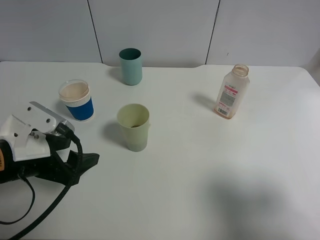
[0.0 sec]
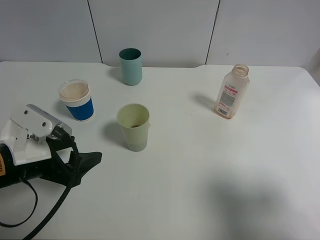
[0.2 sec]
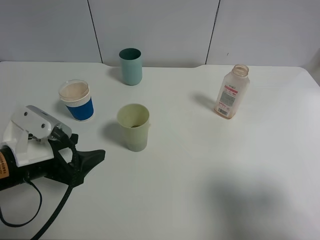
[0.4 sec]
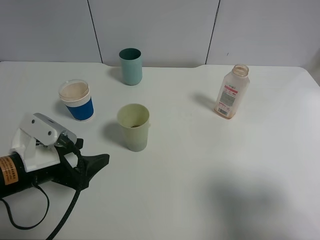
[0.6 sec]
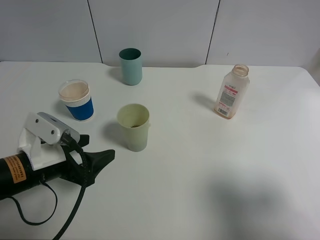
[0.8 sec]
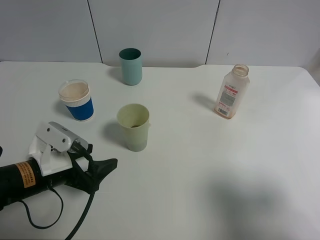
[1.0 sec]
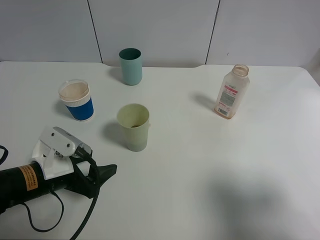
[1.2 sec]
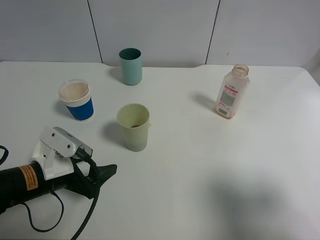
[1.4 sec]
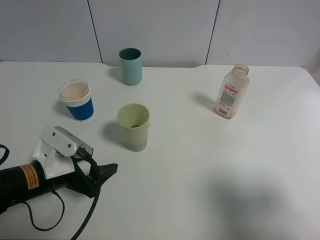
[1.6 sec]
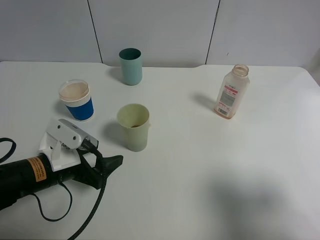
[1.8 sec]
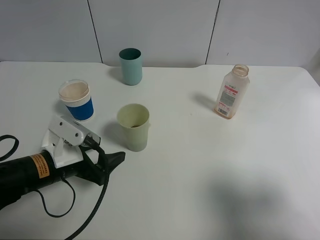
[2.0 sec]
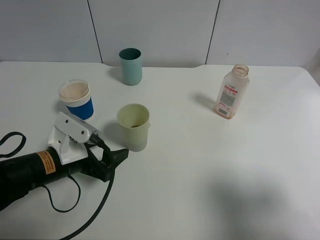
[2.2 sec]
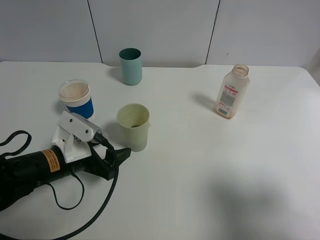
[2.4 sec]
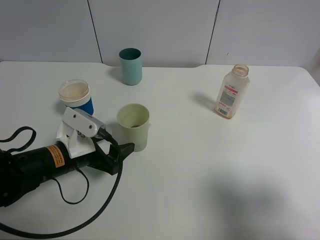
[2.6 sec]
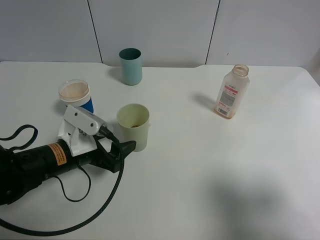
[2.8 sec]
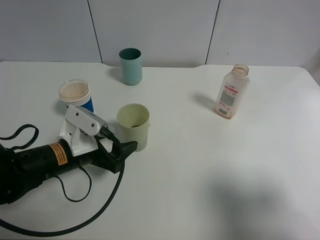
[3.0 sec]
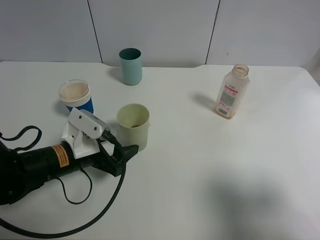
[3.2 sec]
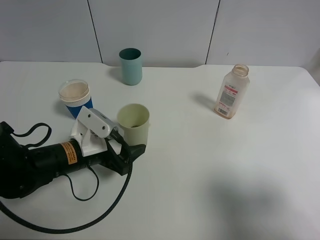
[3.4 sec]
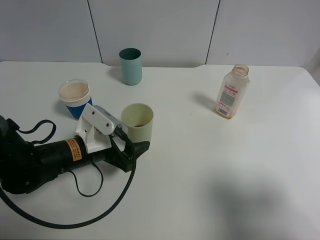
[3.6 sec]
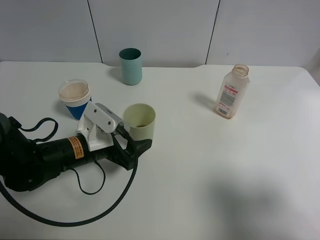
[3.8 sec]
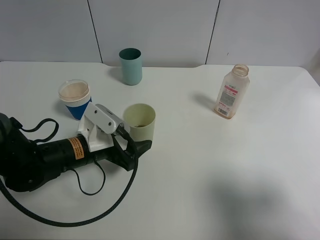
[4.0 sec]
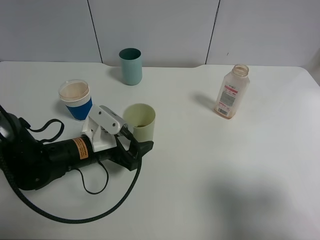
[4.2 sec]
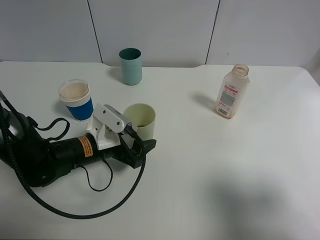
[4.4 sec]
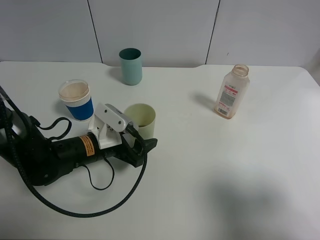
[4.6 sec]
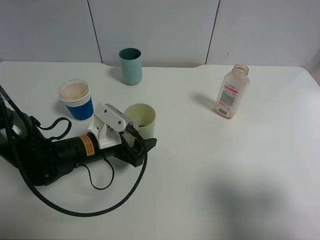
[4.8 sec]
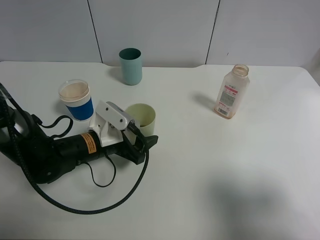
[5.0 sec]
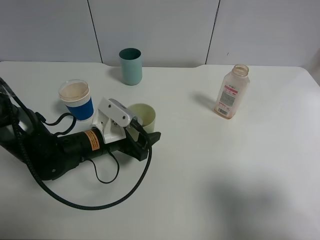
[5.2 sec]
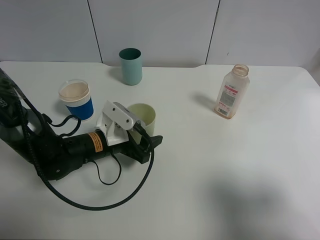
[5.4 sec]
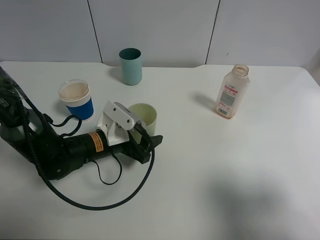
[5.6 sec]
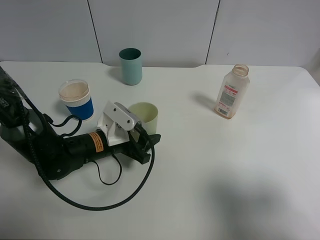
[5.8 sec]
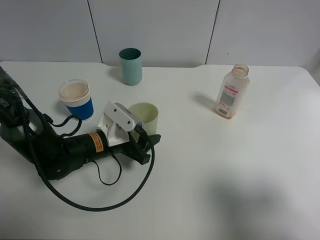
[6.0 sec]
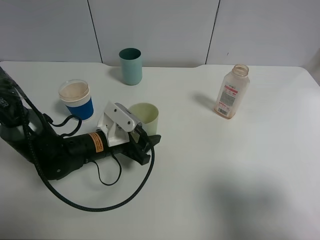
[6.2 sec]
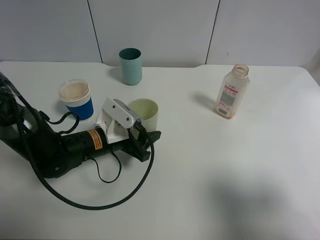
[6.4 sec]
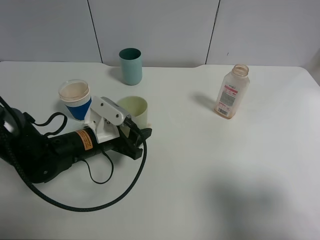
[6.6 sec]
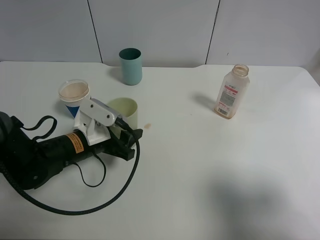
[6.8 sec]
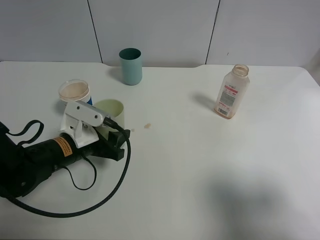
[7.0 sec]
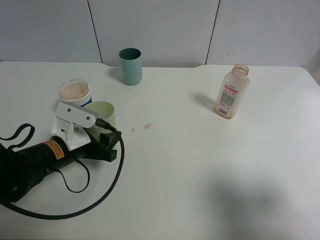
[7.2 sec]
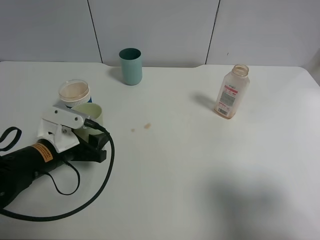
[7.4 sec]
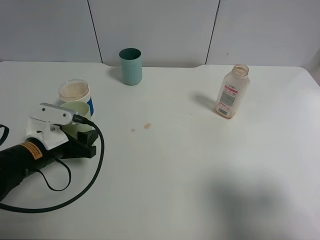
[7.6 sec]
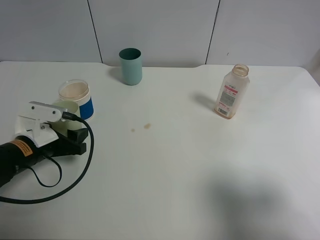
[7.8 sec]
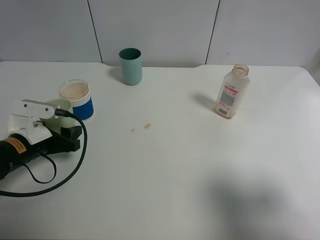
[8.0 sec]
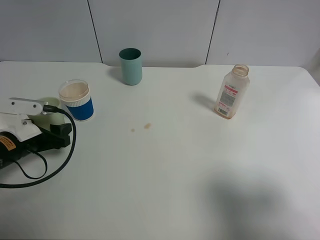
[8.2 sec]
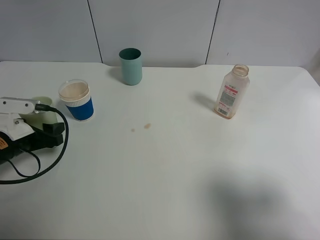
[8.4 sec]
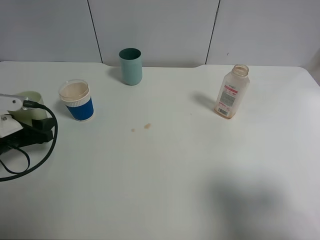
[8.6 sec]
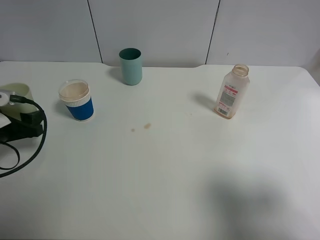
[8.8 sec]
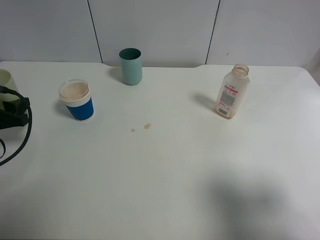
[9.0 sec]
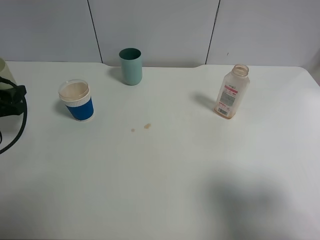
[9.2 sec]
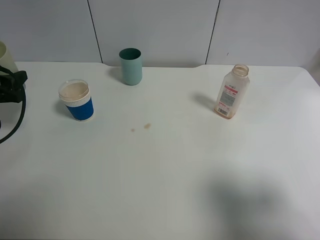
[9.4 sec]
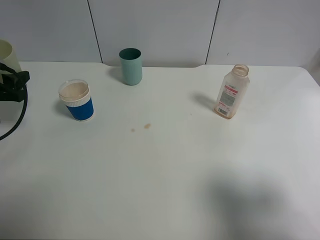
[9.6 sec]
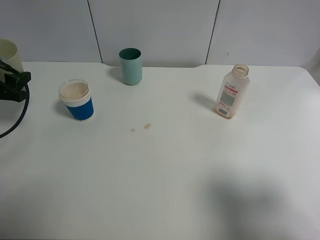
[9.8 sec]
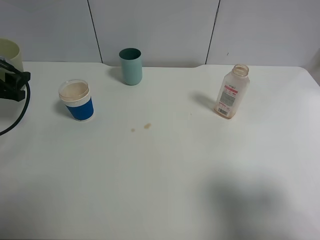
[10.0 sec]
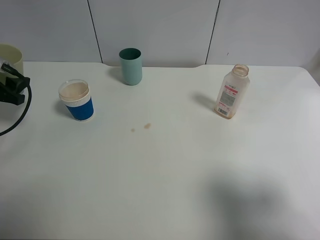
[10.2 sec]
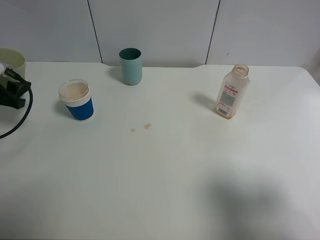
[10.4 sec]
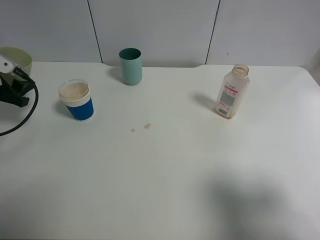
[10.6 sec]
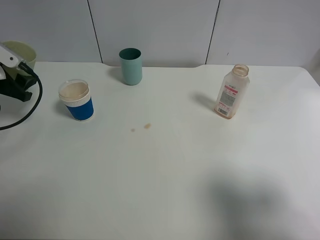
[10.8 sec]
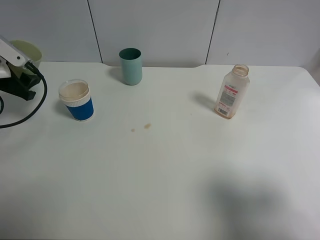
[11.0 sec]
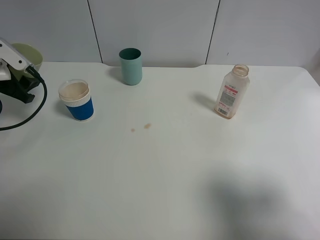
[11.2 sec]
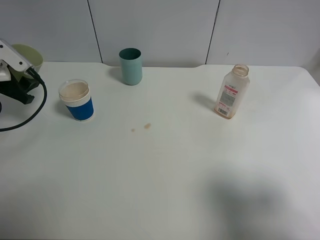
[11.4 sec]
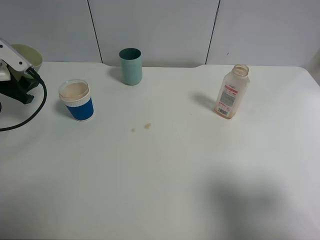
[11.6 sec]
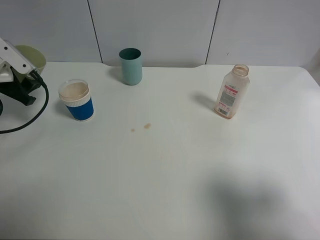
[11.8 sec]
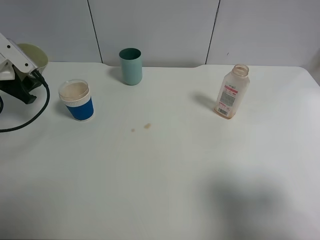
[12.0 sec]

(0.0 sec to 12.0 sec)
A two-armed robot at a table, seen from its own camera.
Task of the whole recording: use a clamp to hold the bottle of the drink, pour the beverage into a random cup, then clamp the cup containing the drink and pour the drink into another random cup.
Step, 0.0 sec - 6.4 sec: Pick up the green plastic cup with left gripper.
0.0 sec - 1.6 sec: The left gripper heads downward, covering about 5 cm.
1.6 sec - 3.0 sec: The left gripper moves some 5 cm.
3.0 sec - 4.4 sec: The left gripper moves some 5 cm.
4.4 sec - 6.0 sec: The left gripper closes its fingers.
6.0 sec - 7.6 sec: The left gripper goes roughly 10 cm to the left.
7.6 sec - 9.0 sec: The left gripper is displaced to the left by some 15 cm.
9.0 sec - 10.4 sec: The left gripper is displaced forward by approximately 5 cm.
10.4 sec - 12.0 sec: There are only small adjustments of the grippers.

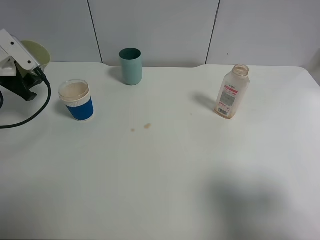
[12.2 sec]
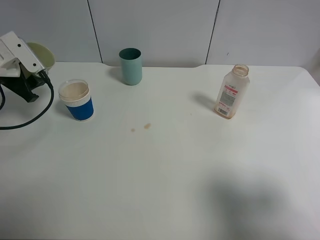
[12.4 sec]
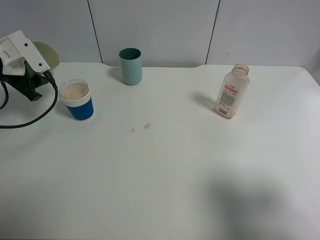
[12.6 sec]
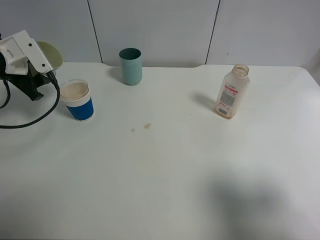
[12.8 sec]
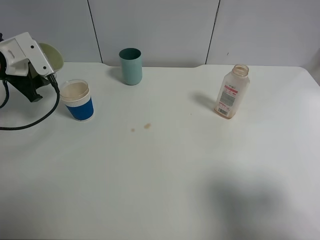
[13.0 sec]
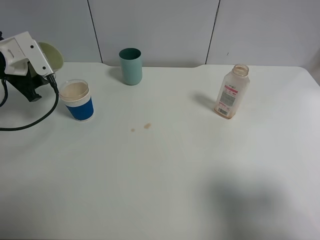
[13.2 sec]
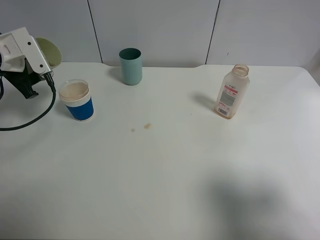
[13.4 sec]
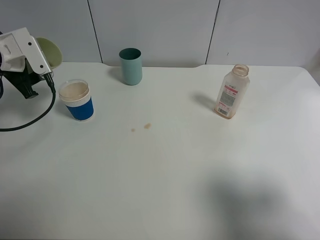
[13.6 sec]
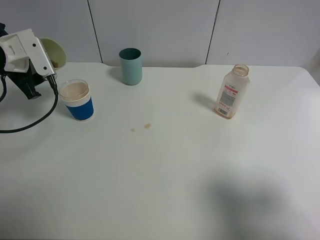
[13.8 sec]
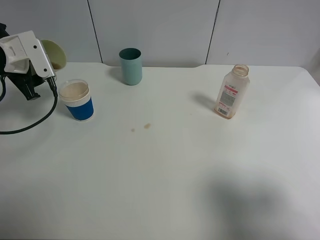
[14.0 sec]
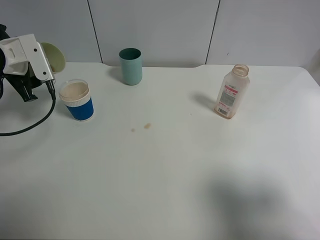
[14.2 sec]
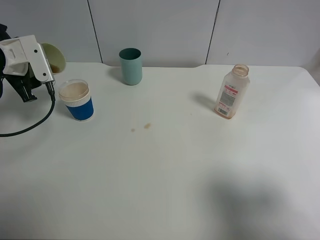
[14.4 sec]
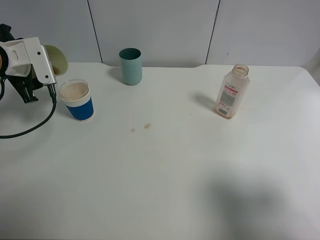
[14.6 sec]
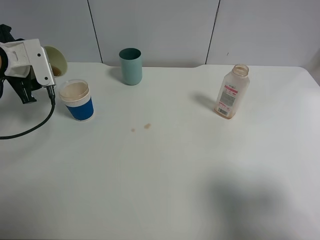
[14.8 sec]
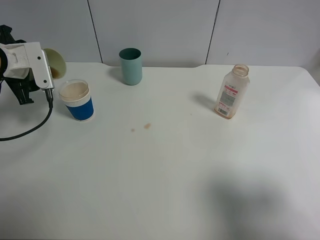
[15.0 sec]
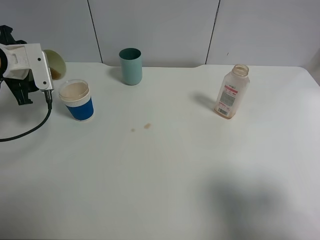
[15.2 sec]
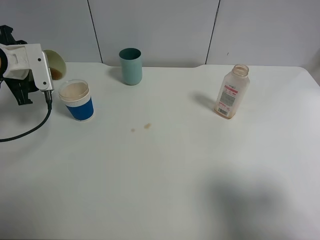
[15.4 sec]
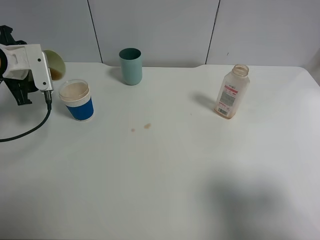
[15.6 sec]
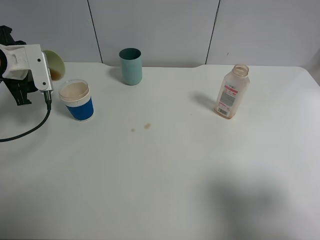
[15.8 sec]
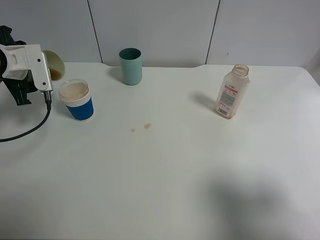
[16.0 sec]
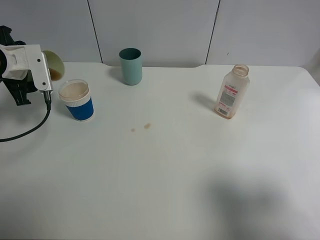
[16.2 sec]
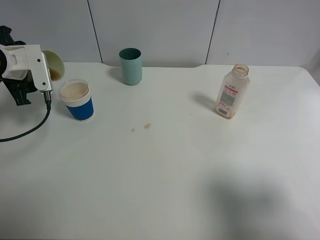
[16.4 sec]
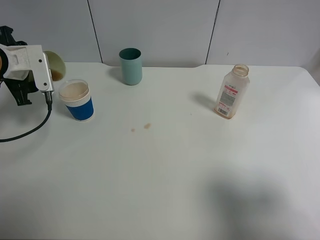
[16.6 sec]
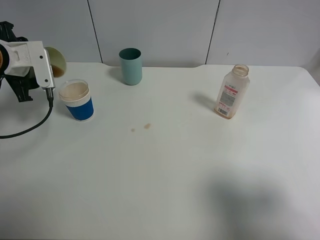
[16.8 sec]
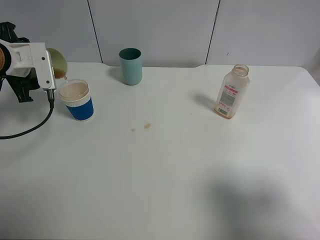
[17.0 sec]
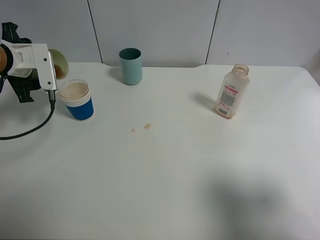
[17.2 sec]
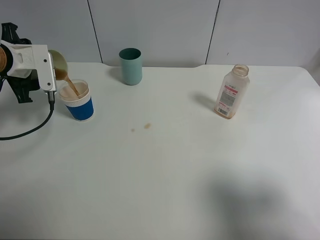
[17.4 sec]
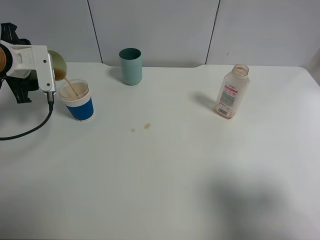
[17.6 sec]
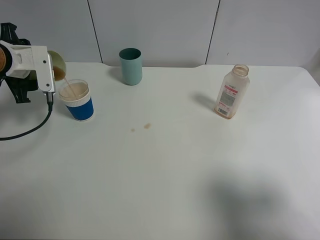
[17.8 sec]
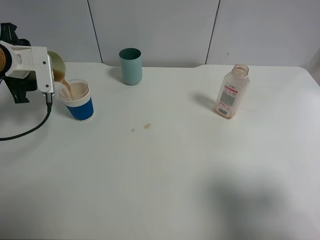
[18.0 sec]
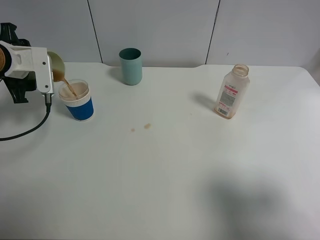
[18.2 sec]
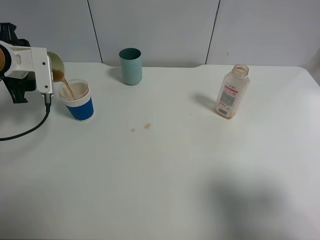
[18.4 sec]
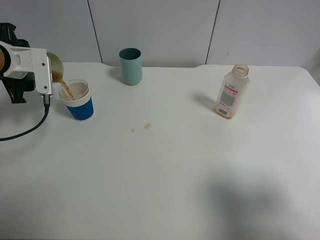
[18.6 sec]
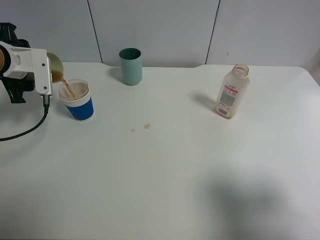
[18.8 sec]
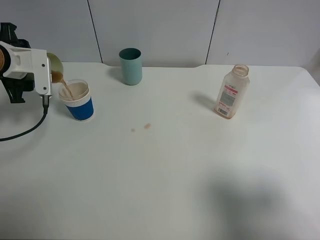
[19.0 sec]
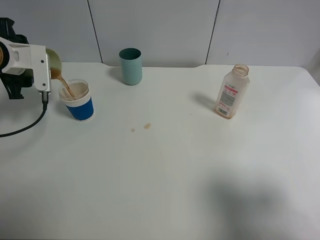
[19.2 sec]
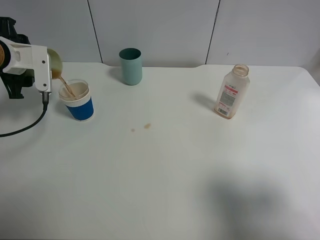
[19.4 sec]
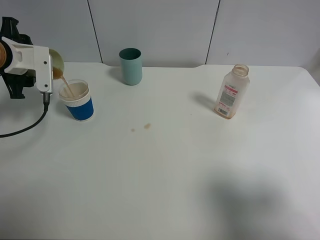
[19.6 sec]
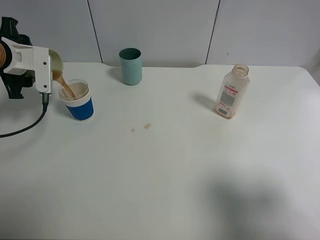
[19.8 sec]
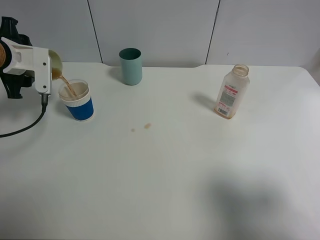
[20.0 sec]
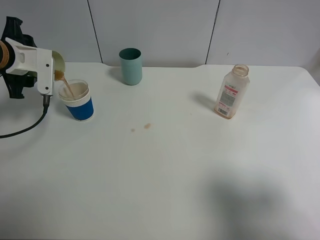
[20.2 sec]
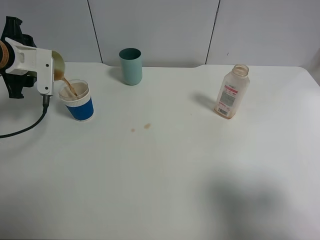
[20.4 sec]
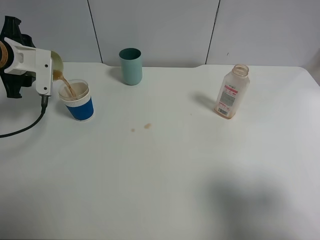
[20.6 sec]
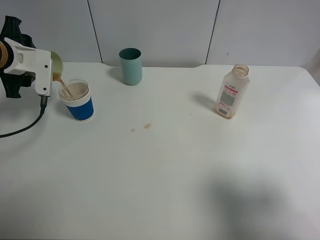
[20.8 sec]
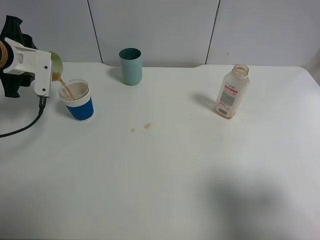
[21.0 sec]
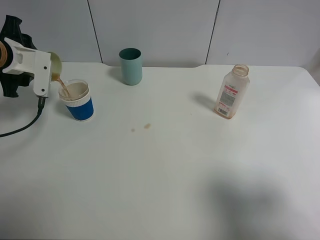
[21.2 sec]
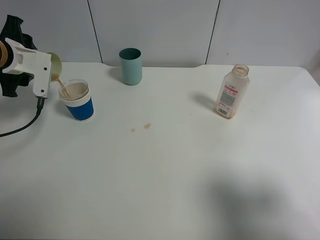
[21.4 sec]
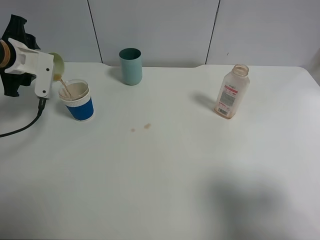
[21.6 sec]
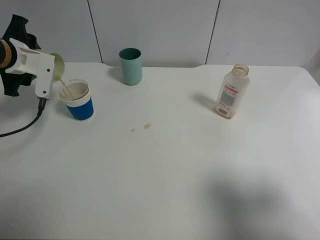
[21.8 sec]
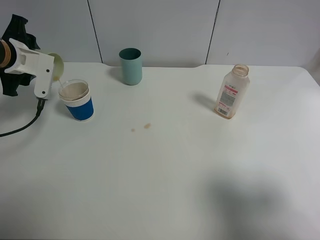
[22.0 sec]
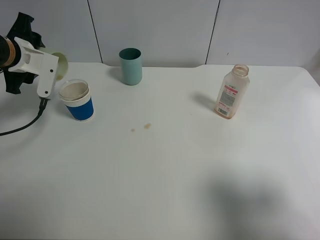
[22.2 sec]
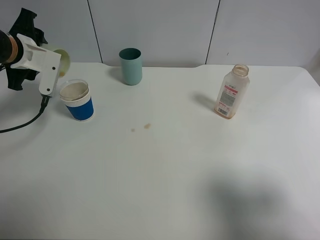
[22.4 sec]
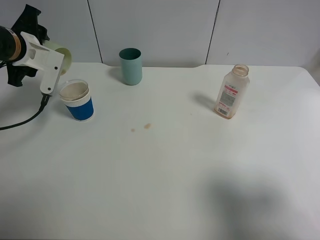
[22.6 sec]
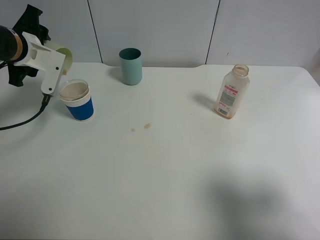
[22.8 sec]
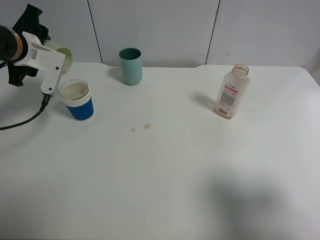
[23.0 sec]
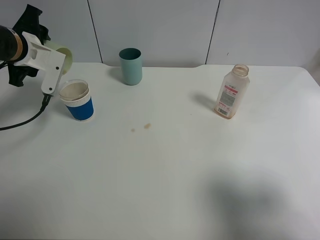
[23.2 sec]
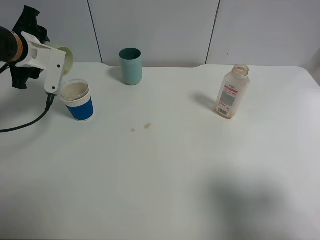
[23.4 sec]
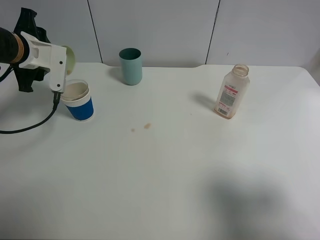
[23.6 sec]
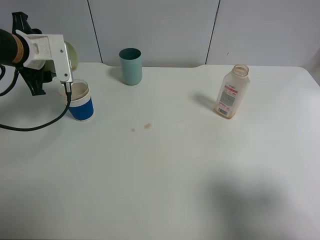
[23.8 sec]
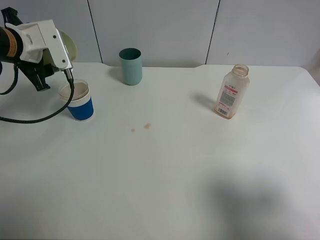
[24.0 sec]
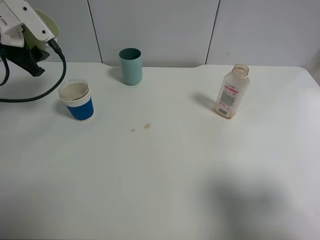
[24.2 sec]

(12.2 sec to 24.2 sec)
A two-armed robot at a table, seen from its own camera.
Task of the whole recording: use a clamp to hold the bottle of the drink, pour the beverage into a random cup, then clamp the cup containing the drink and pour the drink into another random cup.
Step, 12.2 sec - 24.0 sec: Pour the drink into the paper cup with left gripper.
12.2 sec - 13.8 sec: The grippers stay close to where they were, moving slightly.
13.8 sec - 15.2 sec: The grippers make only small movements.
15.2 sec - 16.6 sec: Both grippers stay put.
16.6 sec - 19.8 sec: The grippers make only small movements.
19.8 sec - 21.2 sec: The grippers stay close to where they were, moving slightly.
21.2 sec - 22.6 sec: The grippers make only small movements.
